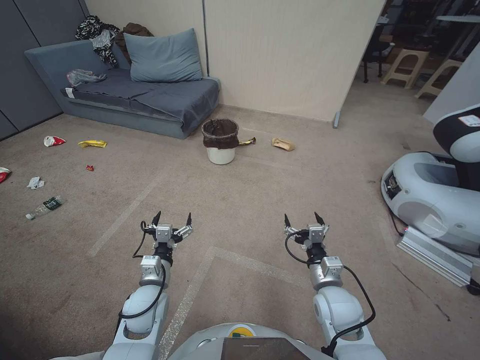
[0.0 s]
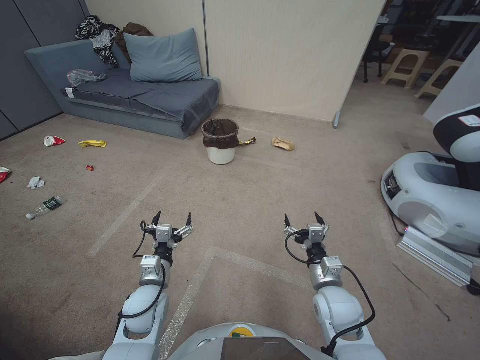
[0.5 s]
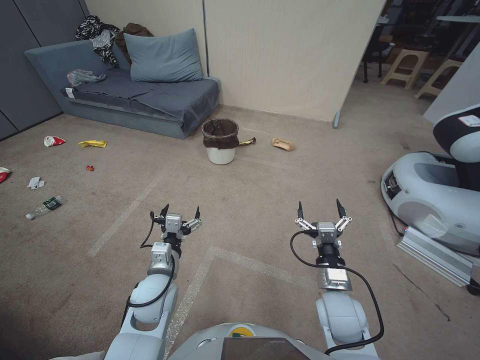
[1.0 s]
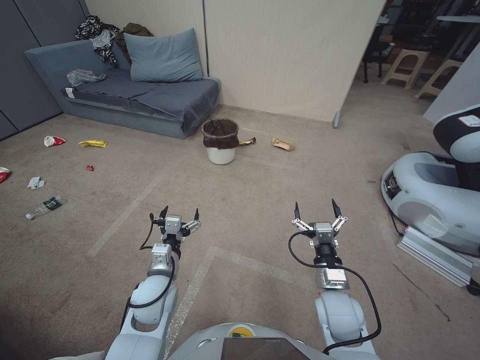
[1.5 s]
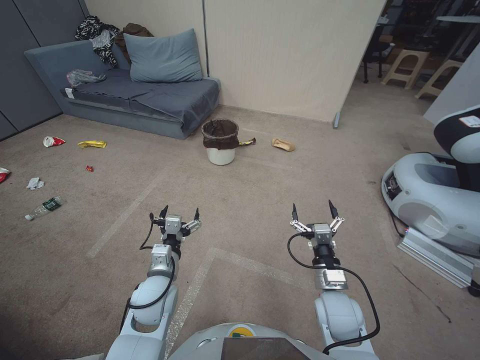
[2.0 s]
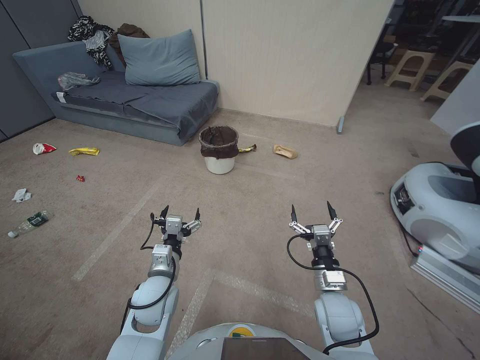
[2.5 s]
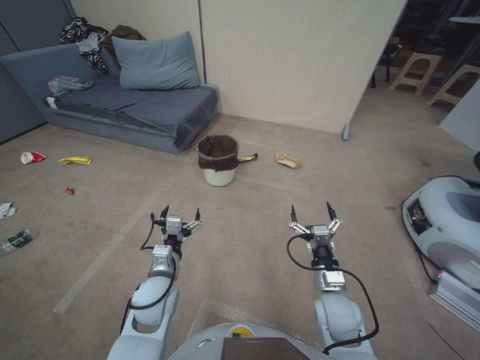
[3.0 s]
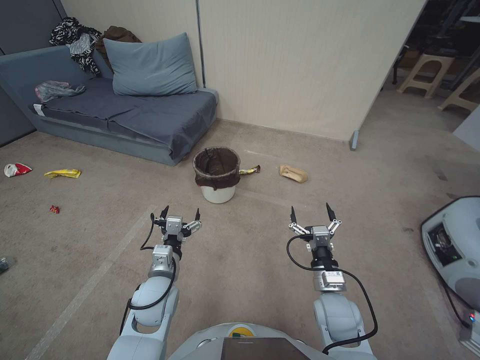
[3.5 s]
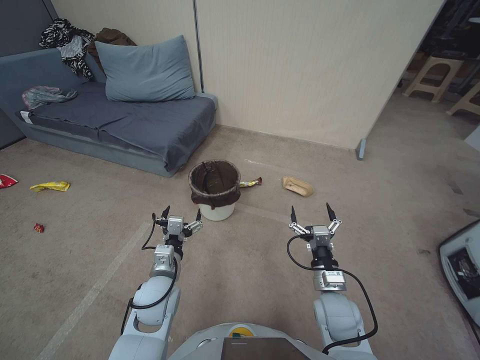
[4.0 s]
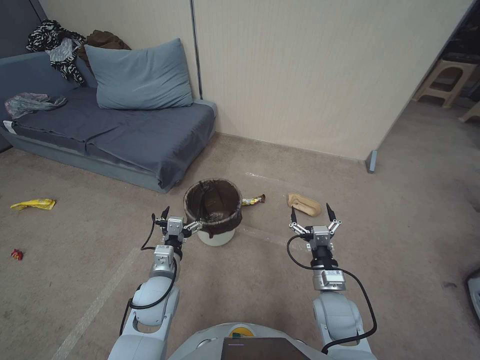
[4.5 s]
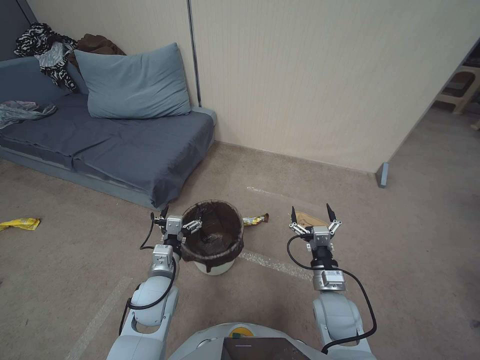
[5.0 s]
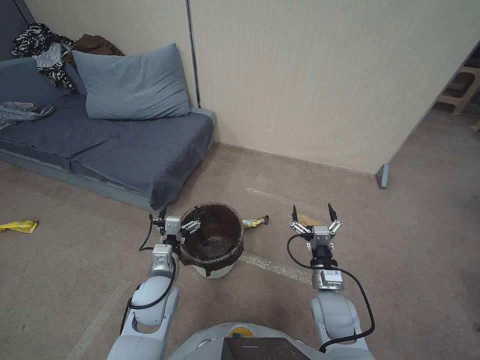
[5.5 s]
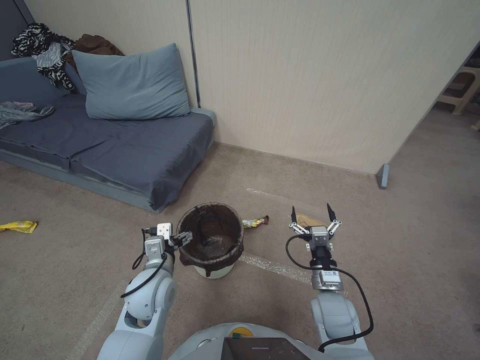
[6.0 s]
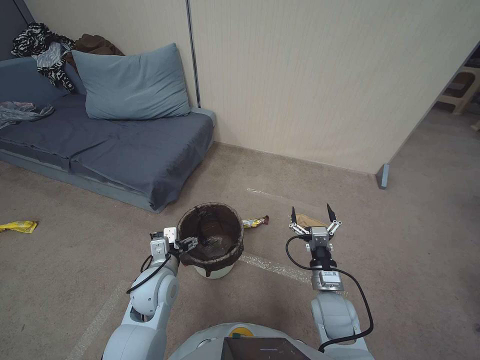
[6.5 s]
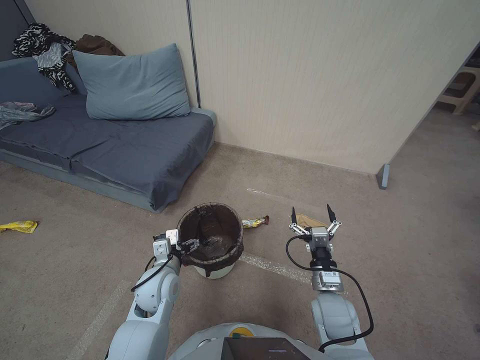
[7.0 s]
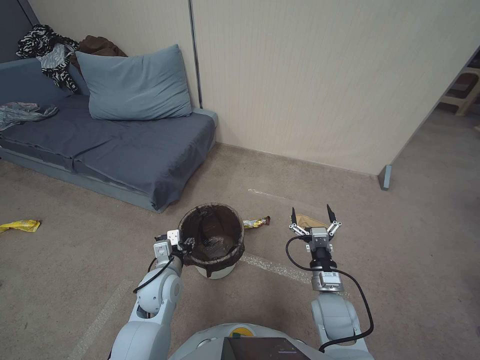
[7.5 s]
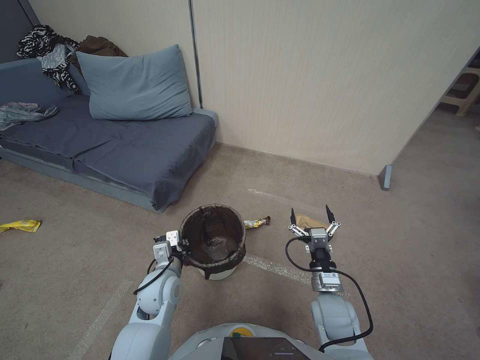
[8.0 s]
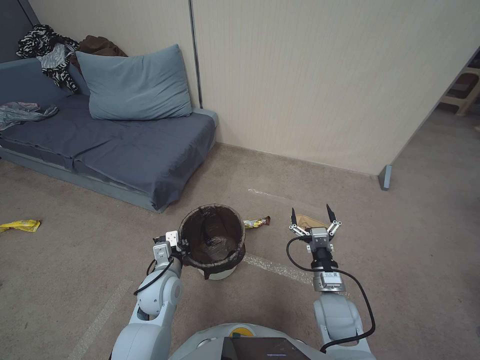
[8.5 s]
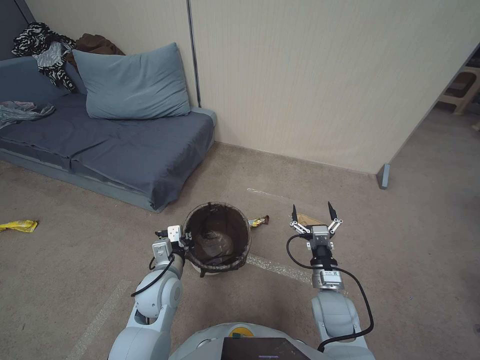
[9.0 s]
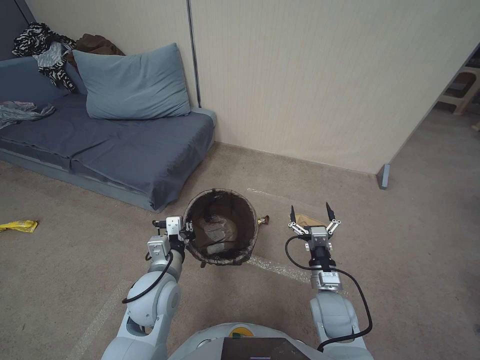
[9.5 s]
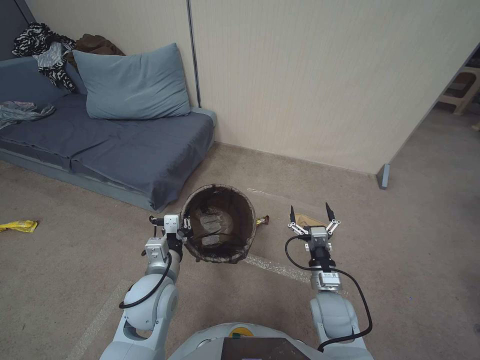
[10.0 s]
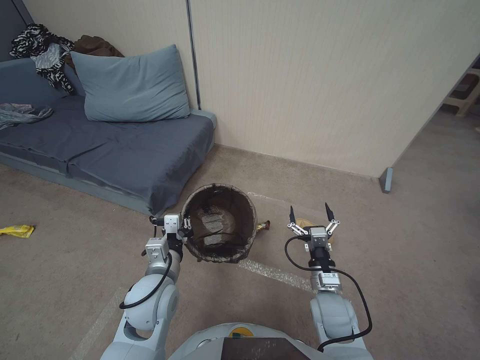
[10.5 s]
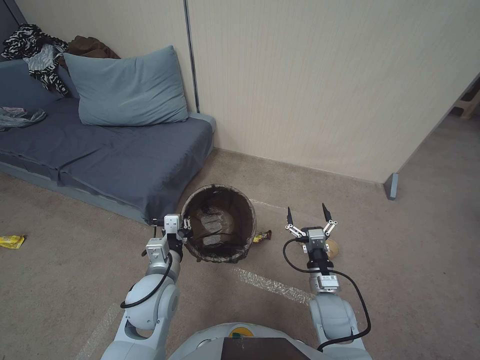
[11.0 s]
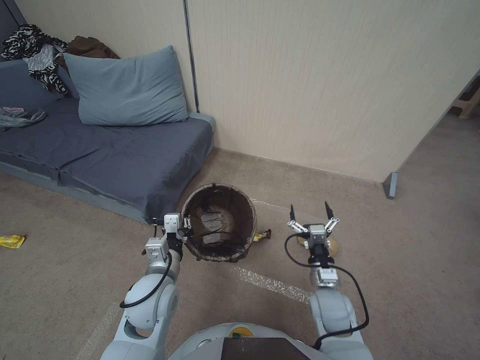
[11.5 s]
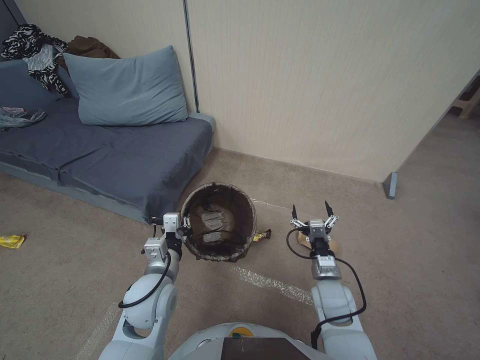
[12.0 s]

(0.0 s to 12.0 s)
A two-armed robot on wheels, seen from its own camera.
Task of the whole recording: Pick up the trash bin, then pick up the garbage from the floor and place it into the trash bin.
6.0 s - 8.0 s: The left gripper travels downward by about 5 cm, and closes up.
8.0 s - 10.0 s: The left gripper travels upward by approximately 10 cm.
10.0 s - 12.0 s: The grippers make only small movements.

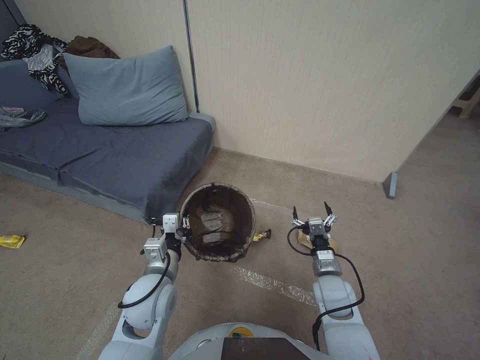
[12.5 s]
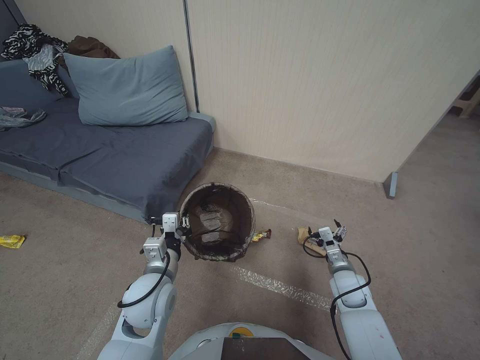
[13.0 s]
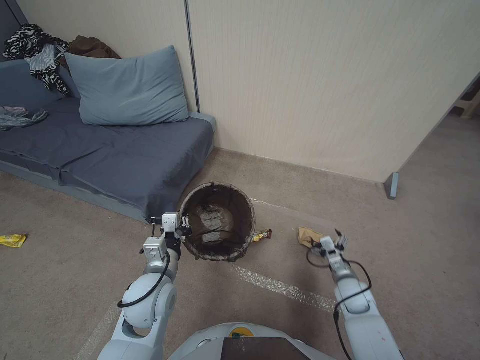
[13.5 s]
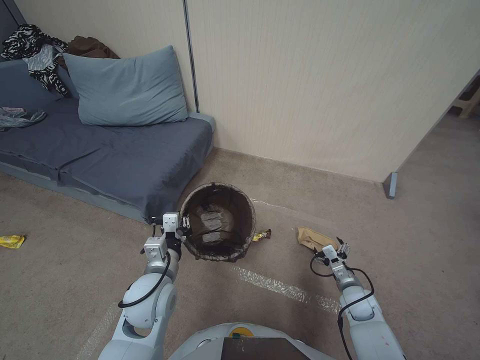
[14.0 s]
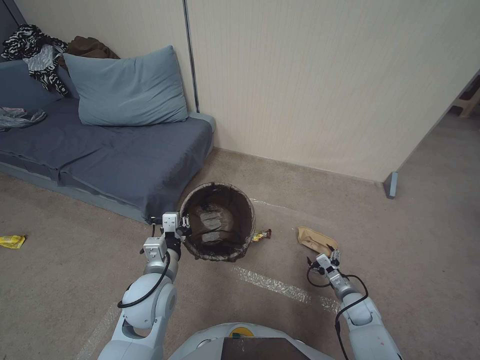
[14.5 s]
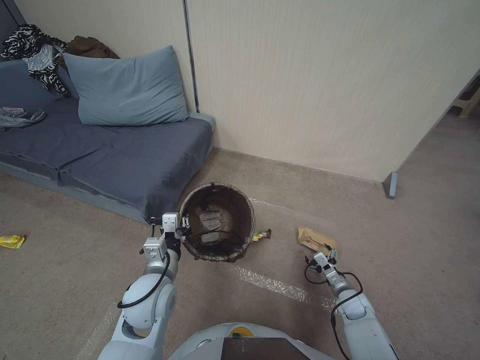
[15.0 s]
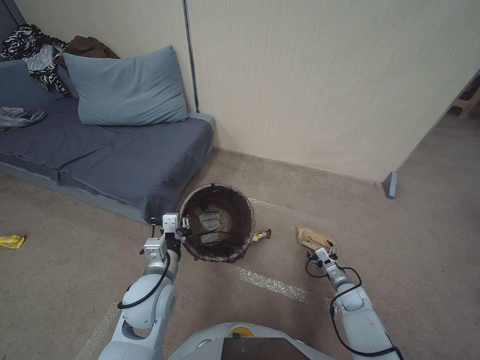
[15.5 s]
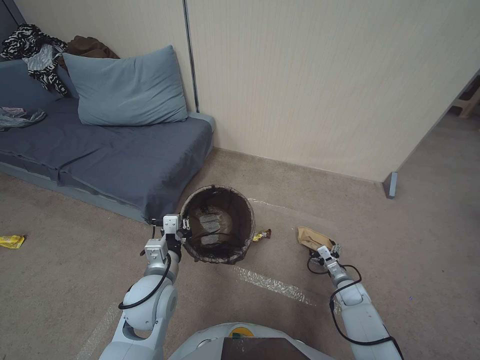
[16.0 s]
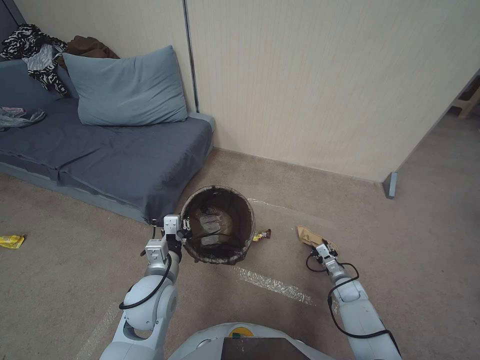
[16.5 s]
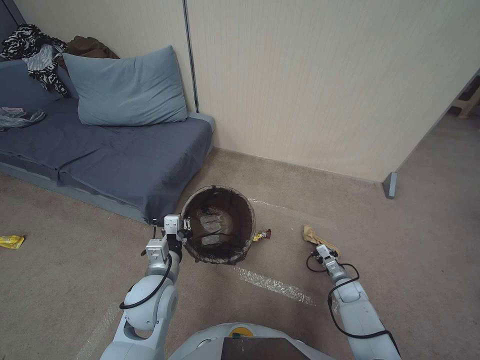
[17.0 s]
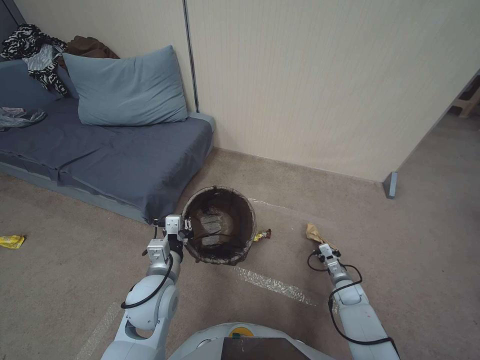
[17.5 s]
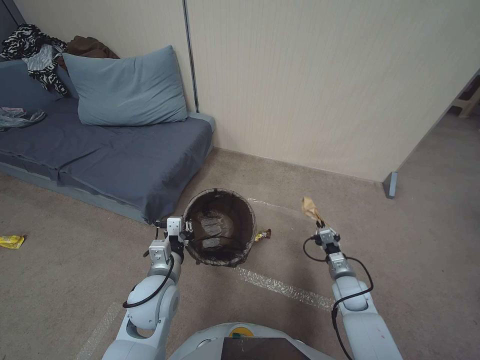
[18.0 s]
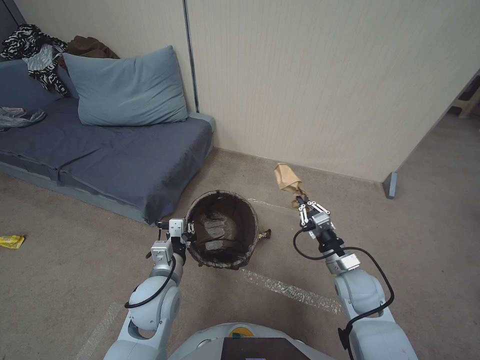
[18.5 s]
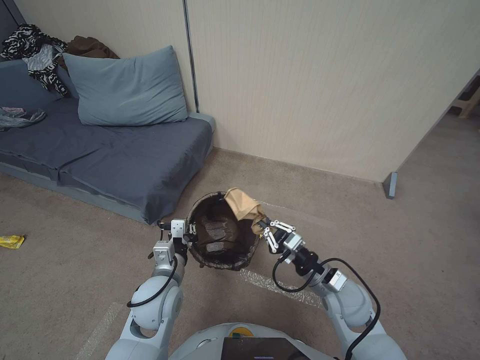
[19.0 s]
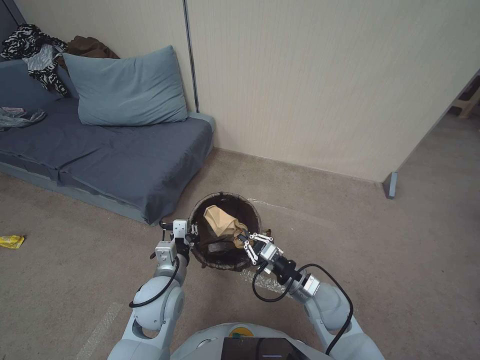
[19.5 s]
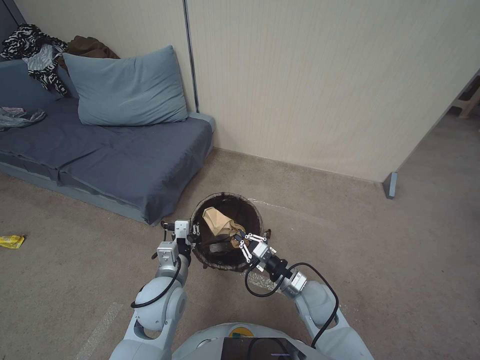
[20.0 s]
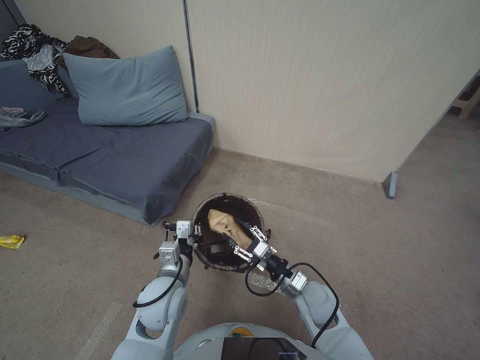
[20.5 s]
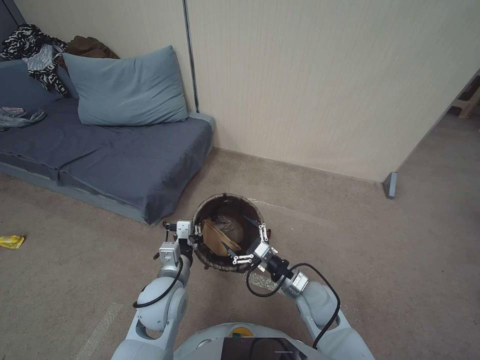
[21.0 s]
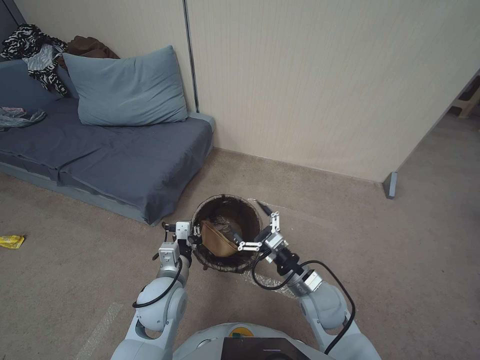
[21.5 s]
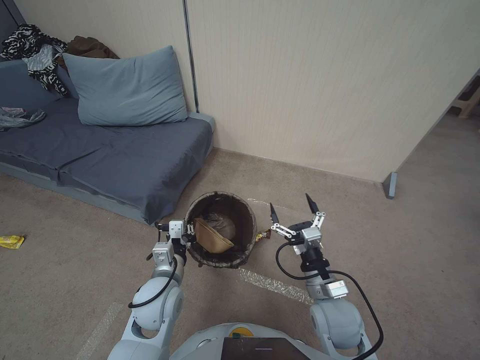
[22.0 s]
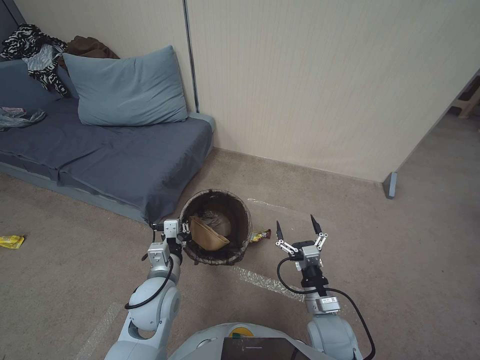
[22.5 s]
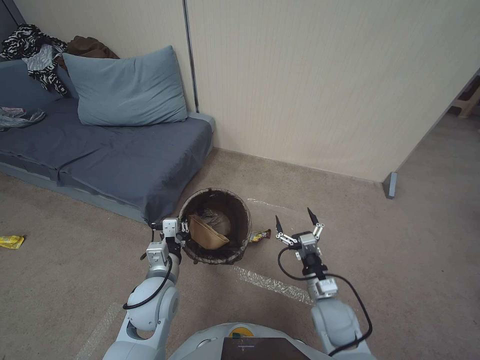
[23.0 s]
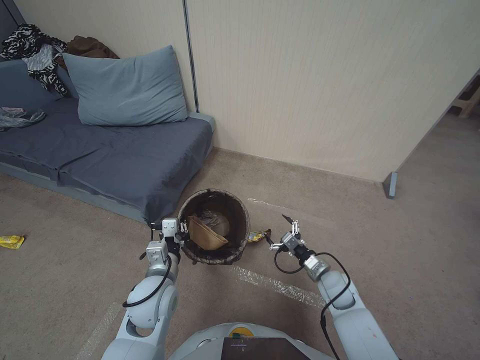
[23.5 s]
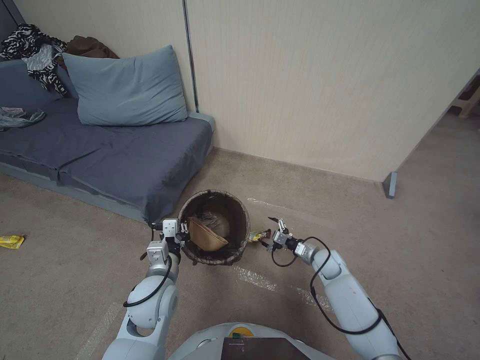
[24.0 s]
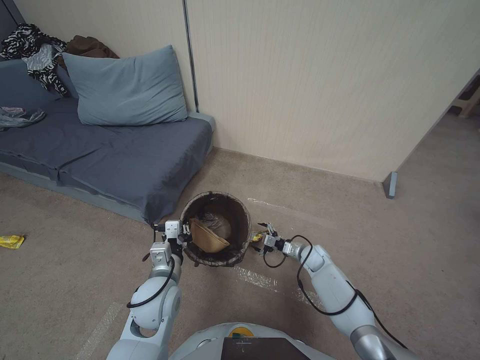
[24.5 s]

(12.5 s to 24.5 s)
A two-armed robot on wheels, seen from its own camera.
Task of the whole recording: Pick up the trash bin, then pick up the garbage from the floor and place it into the trash bin.
12.5 s - 14.5 s: The right gripper shifts some 20 cm to the right and downward.
14.5 s - 16.5 s: The right gripper heads forward, covering roughly 5 cm, and closes up.
16.5 s - 18.5 s: The right gripper moves upward and to the left, roughly 25 cm, and closes up.
18.5 s - 20.5 s: The right gripper goes approximately 10 cm to the left, and opens up.
20.5 s - 22.5 s: The right gripper shifts approximately 5 cm backward, and opens its fingers.
22.5 s - 24.5 s: The right gripper moves forward and downward, about 25 cm.

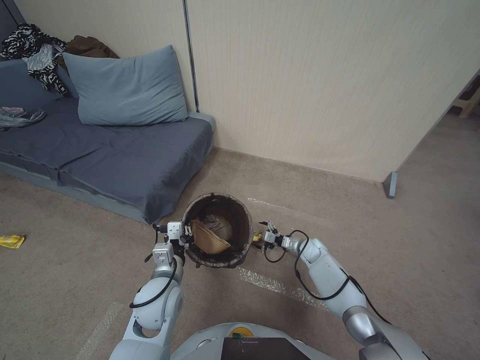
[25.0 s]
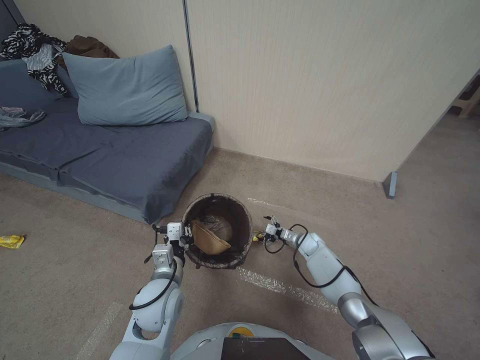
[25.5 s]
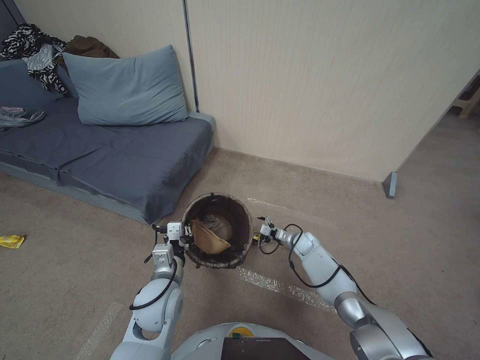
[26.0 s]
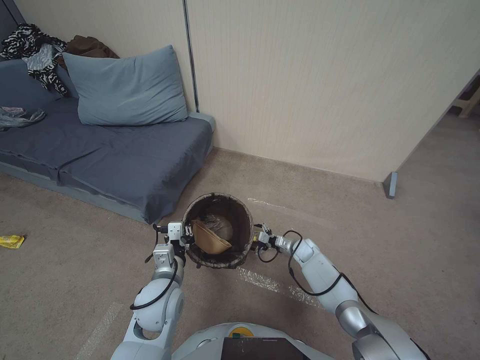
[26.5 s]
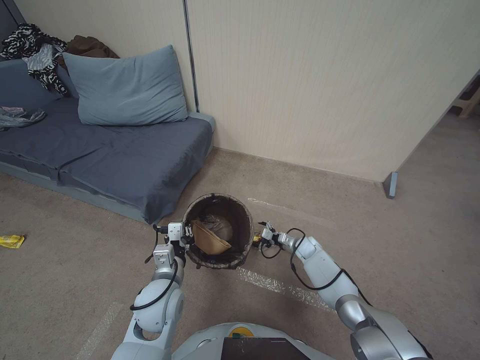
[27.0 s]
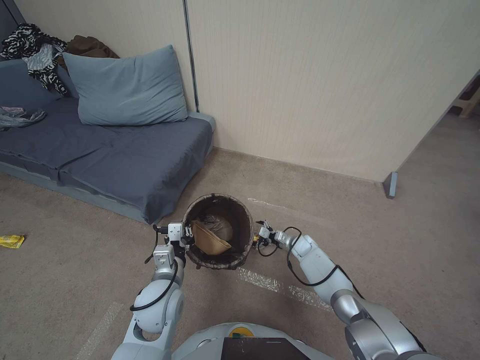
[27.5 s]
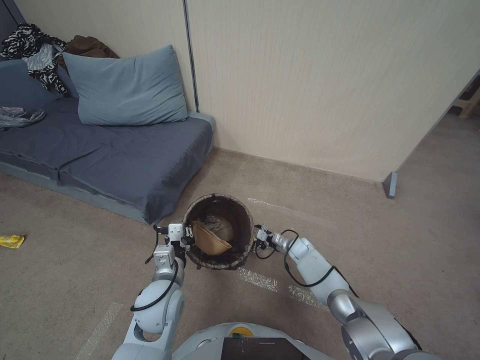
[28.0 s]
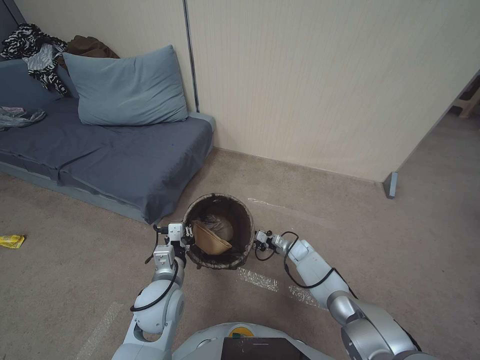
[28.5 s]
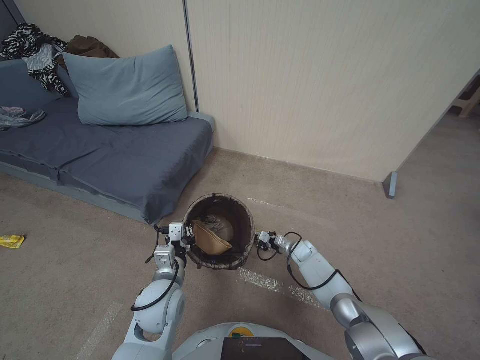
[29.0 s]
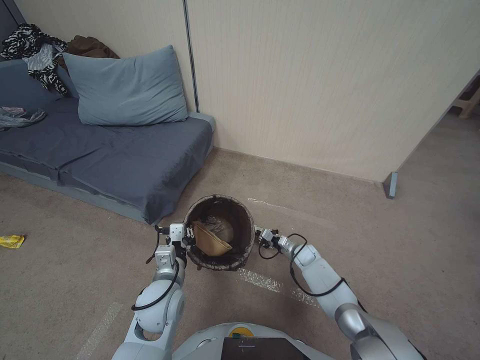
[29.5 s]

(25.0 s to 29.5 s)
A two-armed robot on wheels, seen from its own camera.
Task of the whole recording: Pick up the trash bin, then pick up the garbage from the floor and place it into the trash bin.
25.0 s - 27.0 s: The grippers move only a little.
27.0 s - 29.5 s: The right gripper closes up.
